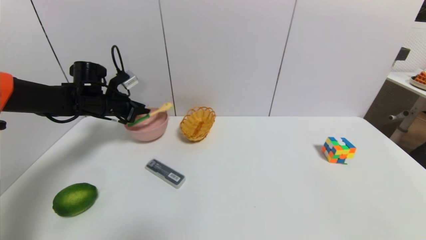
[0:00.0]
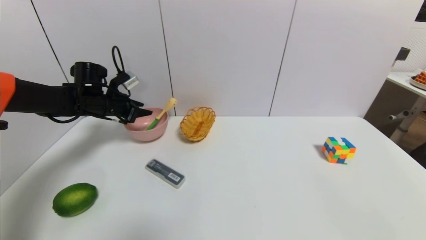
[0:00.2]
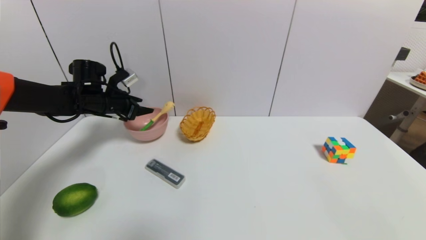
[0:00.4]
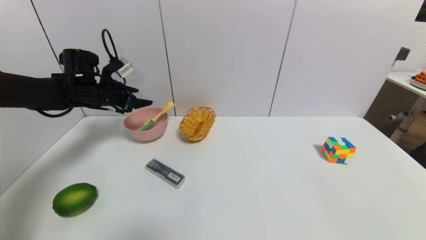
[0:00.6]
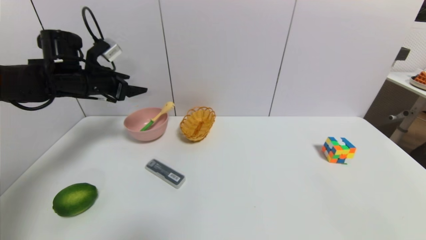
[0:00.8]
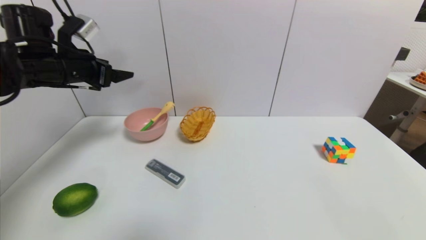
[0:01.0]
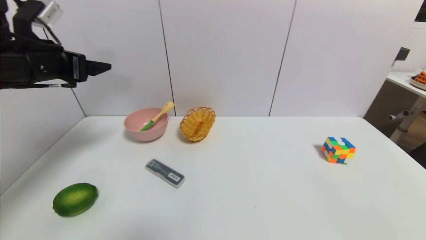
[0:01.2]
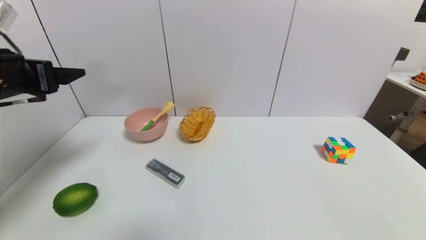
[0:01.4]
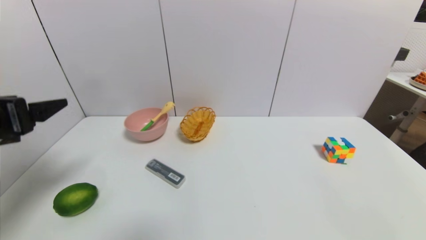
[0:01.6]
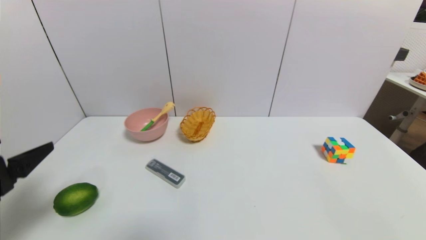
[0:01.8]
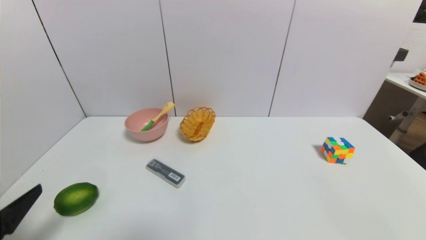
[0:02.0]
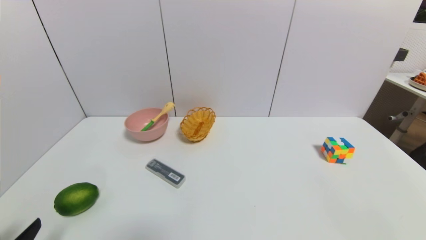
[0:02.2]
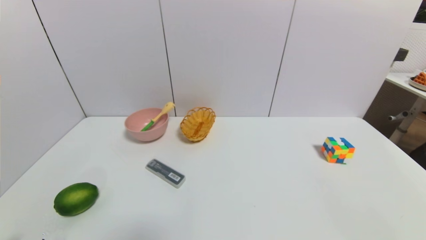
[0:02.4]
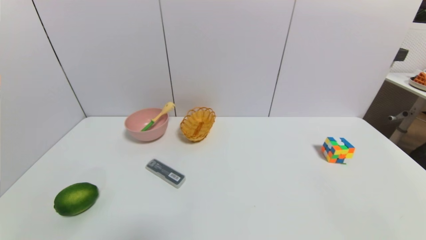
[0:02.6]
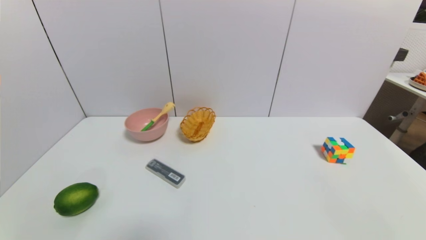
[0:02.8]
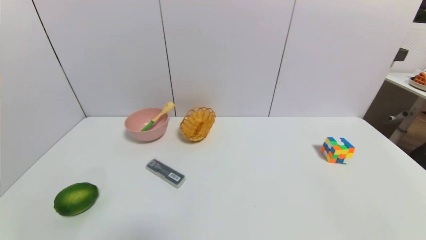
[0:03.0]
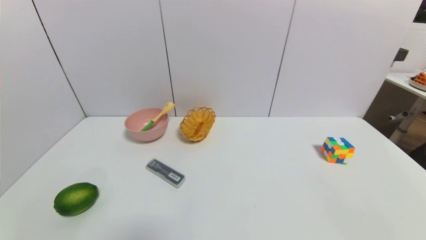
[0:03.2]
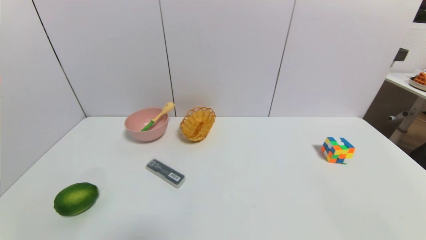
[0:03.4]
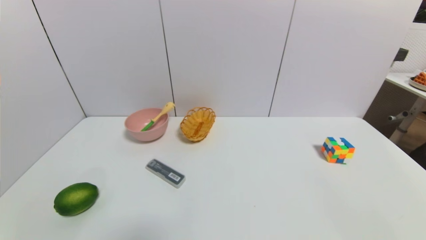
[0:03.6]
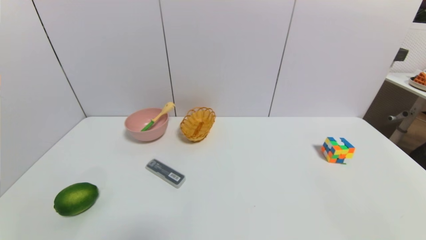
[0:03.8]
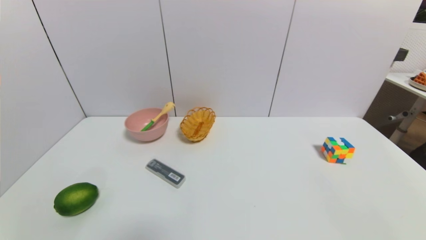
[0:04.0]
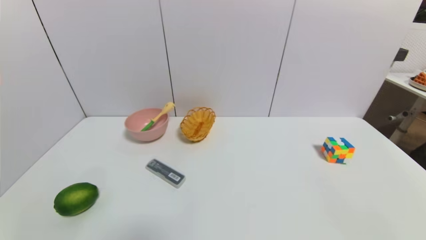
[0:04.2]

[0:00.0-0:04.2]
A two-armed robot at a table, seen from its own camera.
Task of the whole recording: use a gripper to pick the target object and place on the pink bowl.
0:00.0 to 0:01.4: The left gripper travels backward and upward by roughly 25 cm, and opens up.
0:01.4 to 0:02.8: The left gripper moves downward and backward, about 35 cm.
0:02.8 to 0:04.2: The two grippers keep their place.
